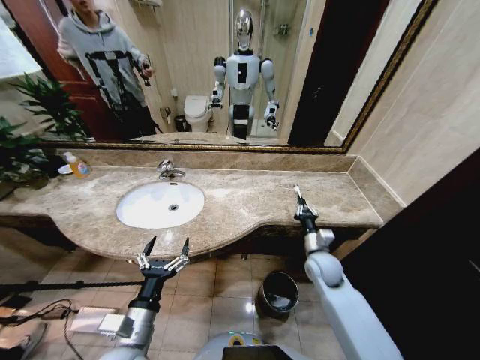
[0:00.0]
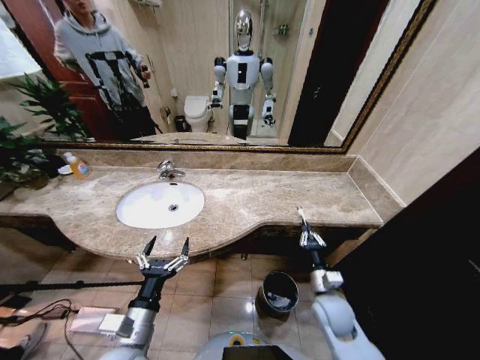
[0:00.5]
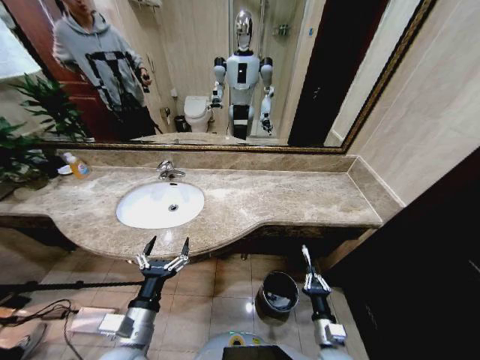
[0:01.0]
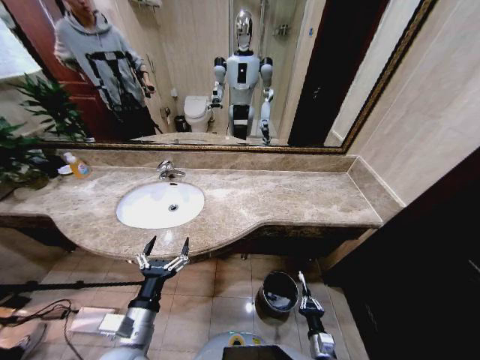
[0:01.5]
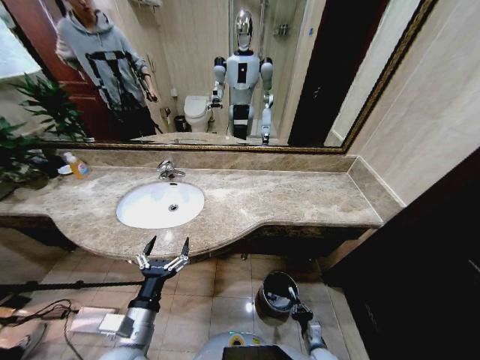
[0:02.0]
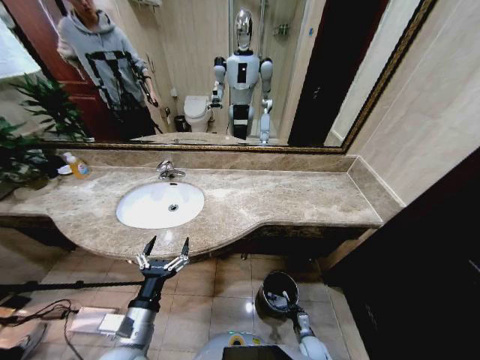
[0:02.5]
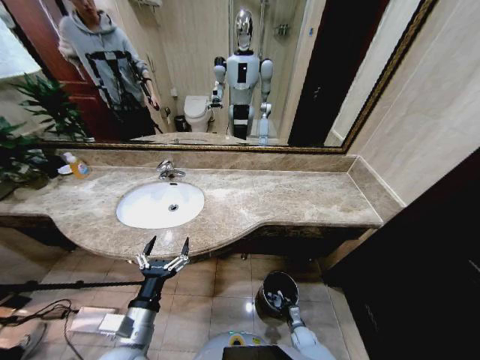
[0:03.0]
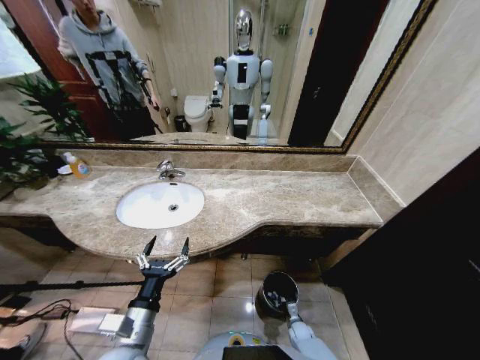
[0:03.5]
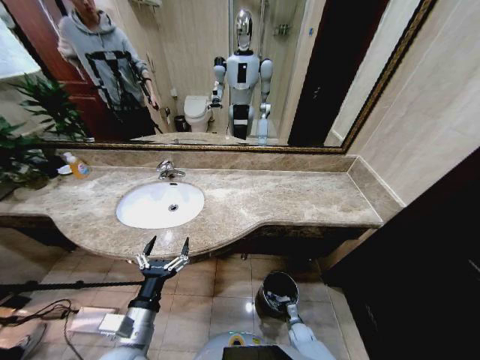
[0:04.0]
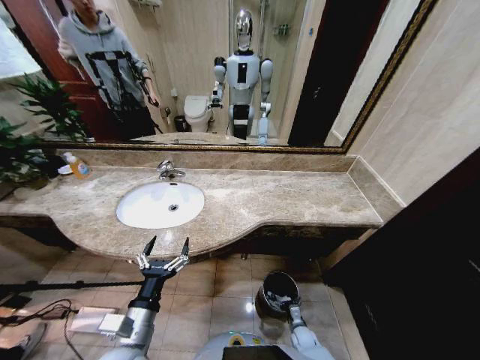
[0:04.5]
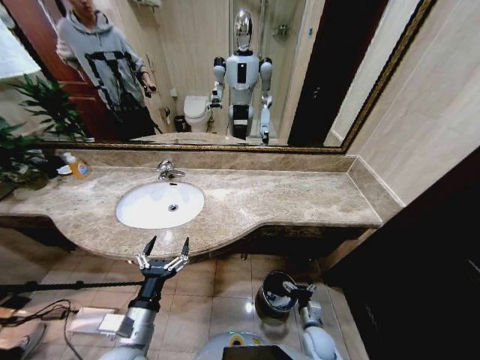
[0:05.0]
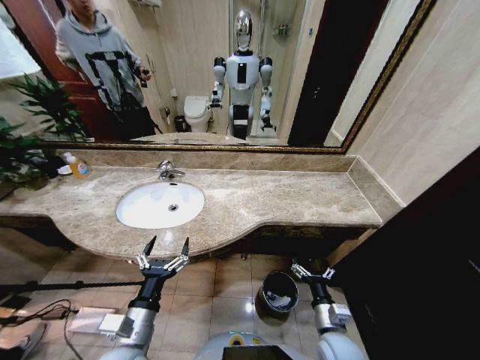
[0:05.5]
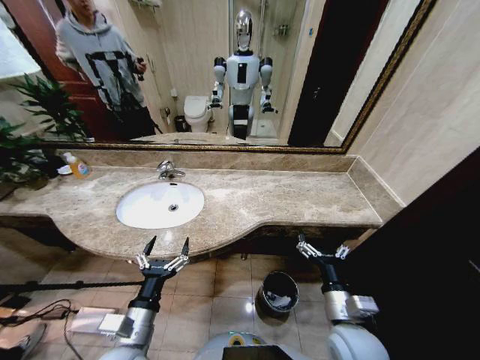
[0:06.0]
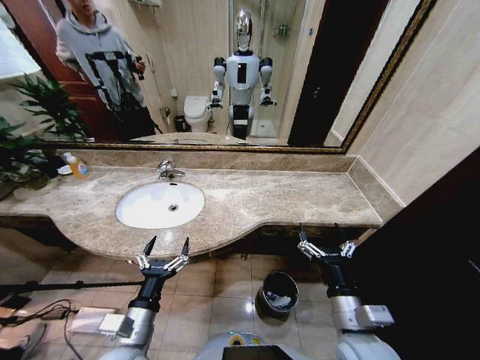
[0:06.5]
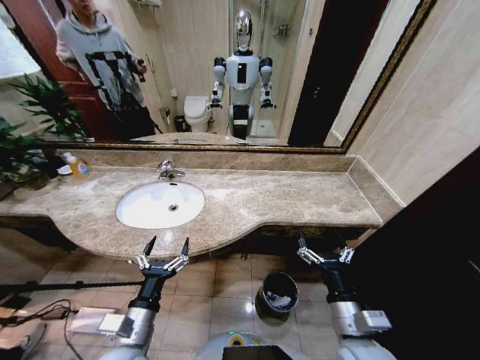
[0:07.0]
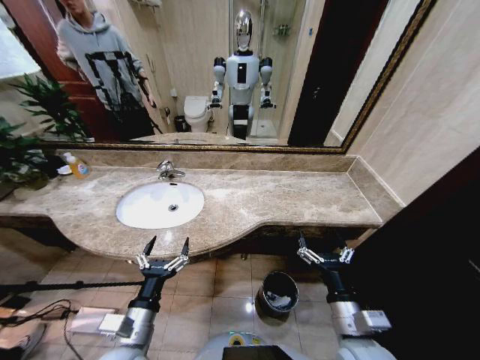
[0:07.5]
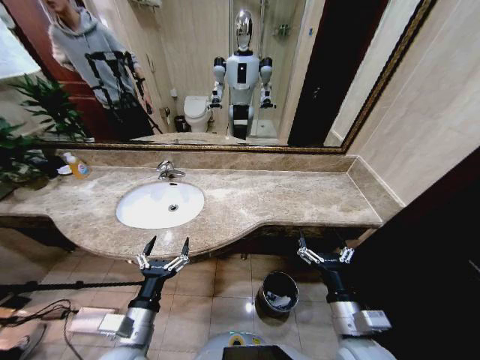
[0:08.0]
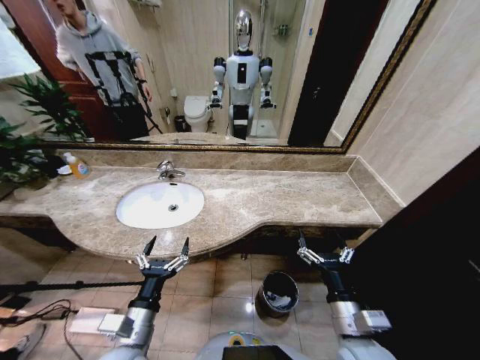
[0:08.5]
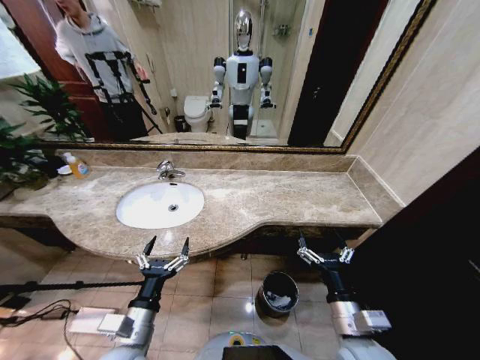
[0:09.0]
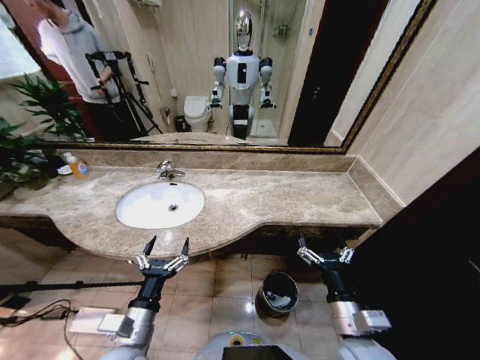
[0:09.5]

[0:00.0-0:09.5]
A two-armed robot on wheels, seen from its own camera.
Task of the whole recording: Pick up the trash from the sink and place it in the trash bin.
0:00.0 to 0:02.0: The right gripper travels downward and backward by roughly 35 cm.
0:02.0 to 0:04.0: The right gripper shifts about 10 cm downward and forward, and opens up.
0:04.0 to 0:05.5: The right gripper travels upward by some 30 cm.
0:05.5 to 0:07.5: The right gripper travels upward by about 10 cm.
0:07.5 to 0:09.5: Both grippers stay put.
